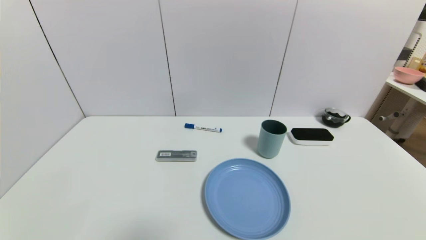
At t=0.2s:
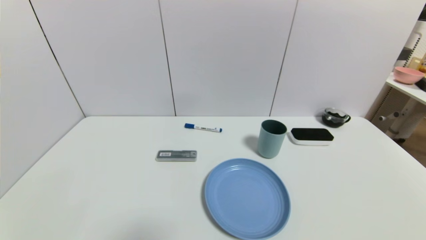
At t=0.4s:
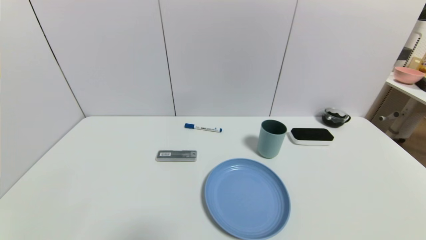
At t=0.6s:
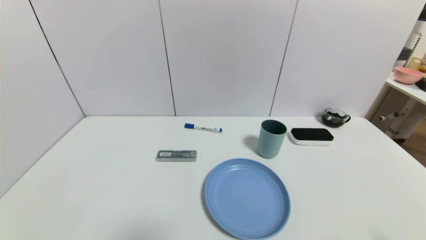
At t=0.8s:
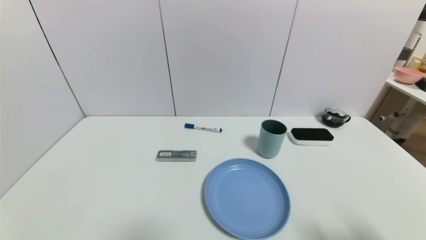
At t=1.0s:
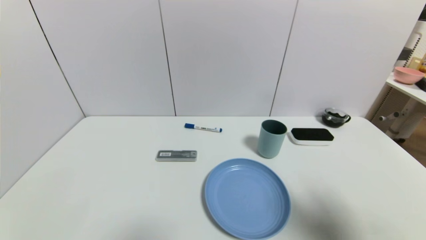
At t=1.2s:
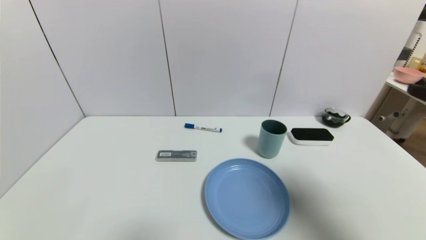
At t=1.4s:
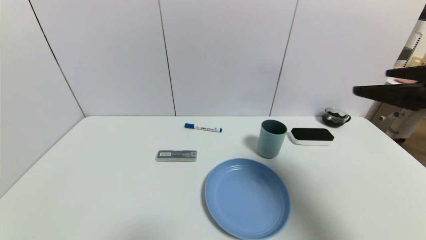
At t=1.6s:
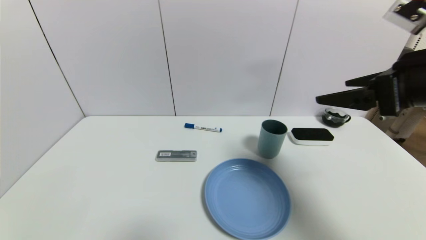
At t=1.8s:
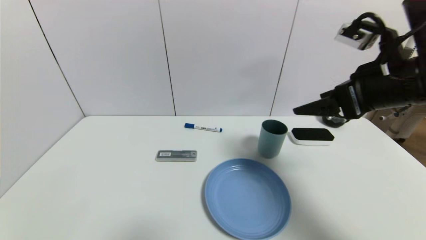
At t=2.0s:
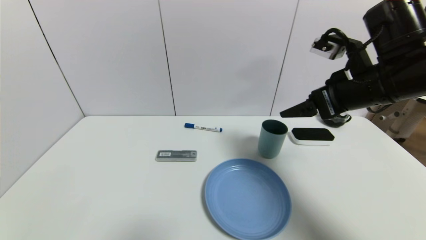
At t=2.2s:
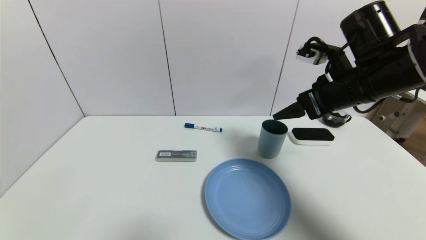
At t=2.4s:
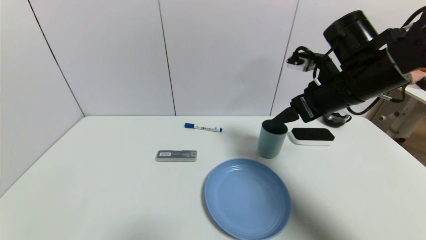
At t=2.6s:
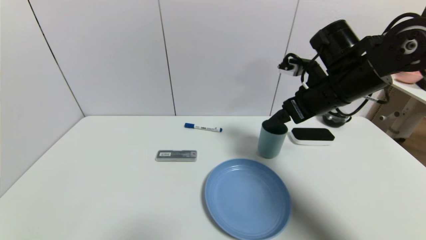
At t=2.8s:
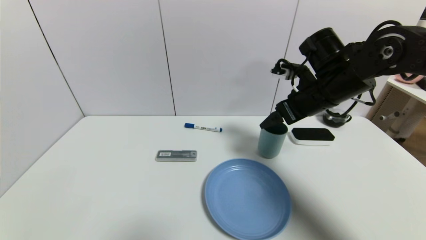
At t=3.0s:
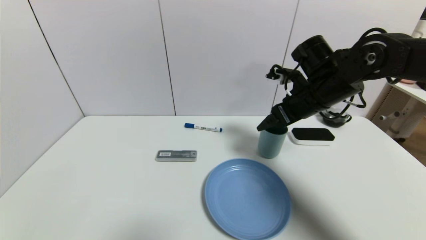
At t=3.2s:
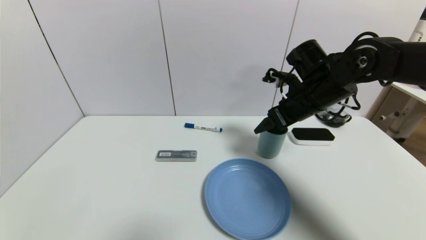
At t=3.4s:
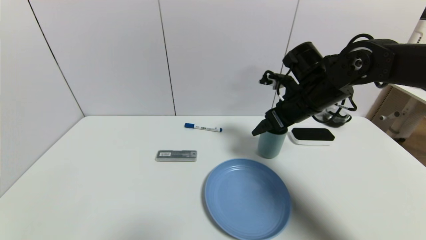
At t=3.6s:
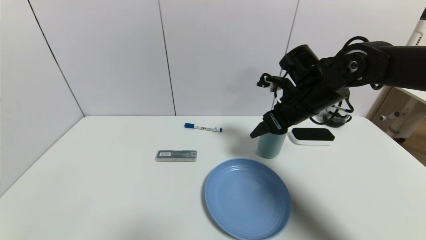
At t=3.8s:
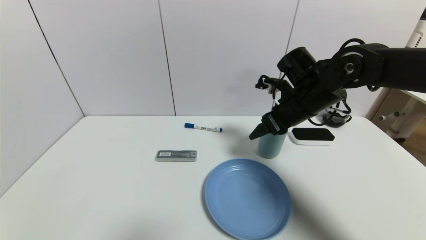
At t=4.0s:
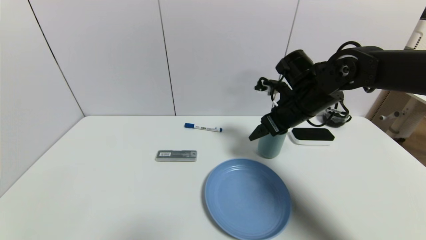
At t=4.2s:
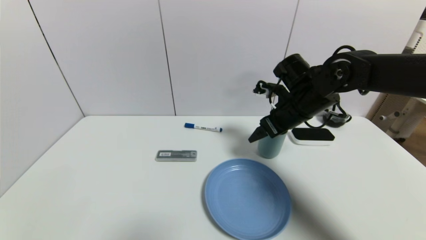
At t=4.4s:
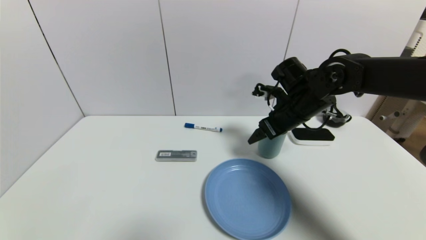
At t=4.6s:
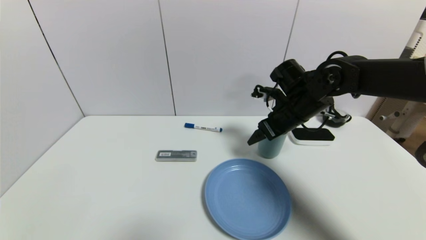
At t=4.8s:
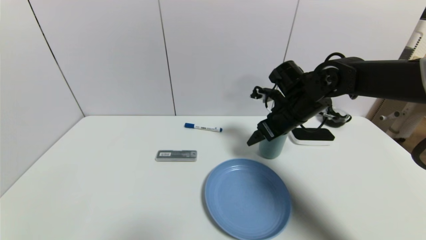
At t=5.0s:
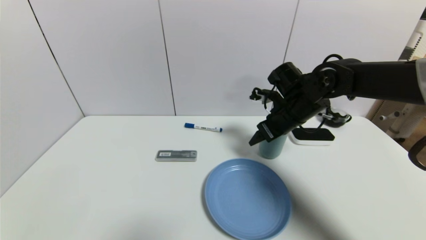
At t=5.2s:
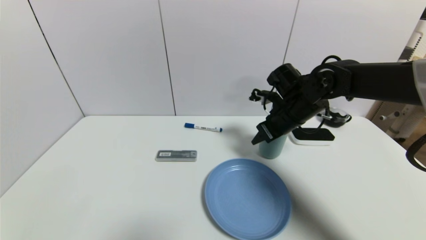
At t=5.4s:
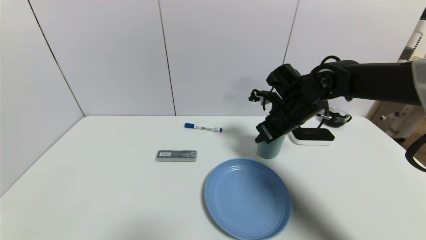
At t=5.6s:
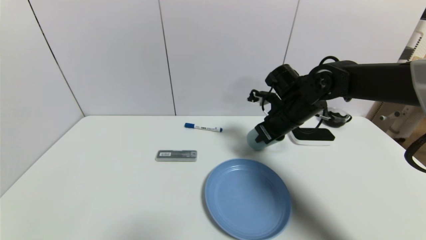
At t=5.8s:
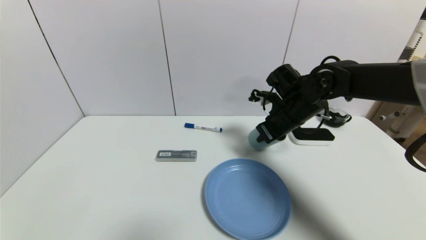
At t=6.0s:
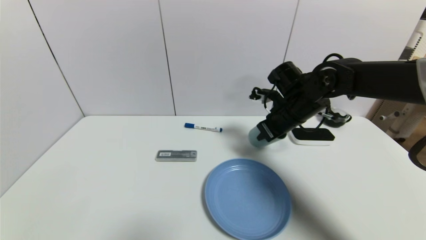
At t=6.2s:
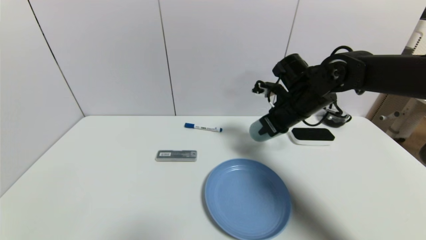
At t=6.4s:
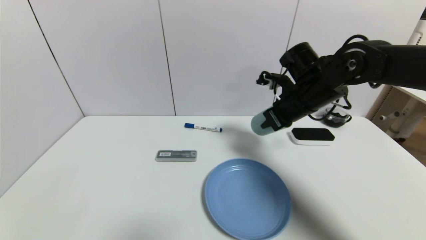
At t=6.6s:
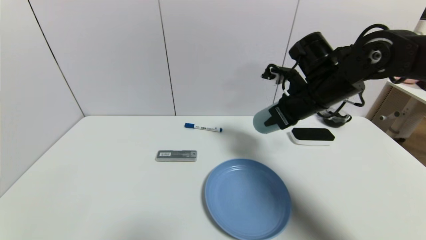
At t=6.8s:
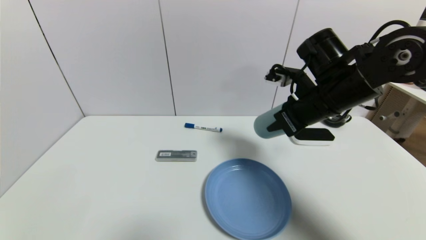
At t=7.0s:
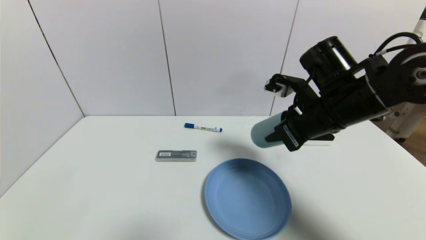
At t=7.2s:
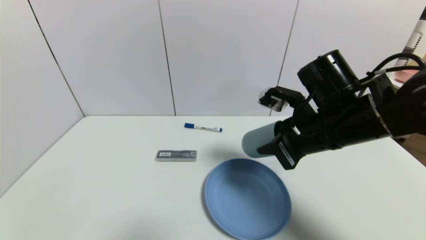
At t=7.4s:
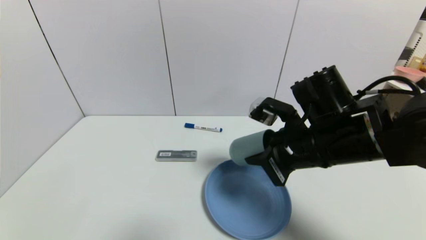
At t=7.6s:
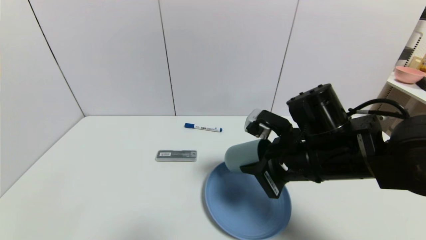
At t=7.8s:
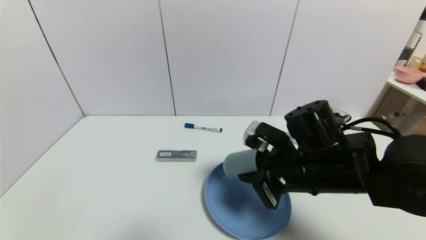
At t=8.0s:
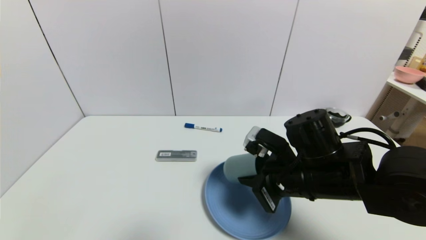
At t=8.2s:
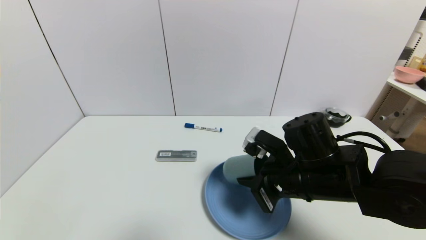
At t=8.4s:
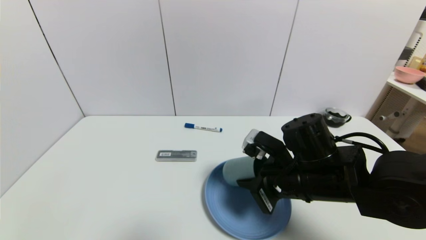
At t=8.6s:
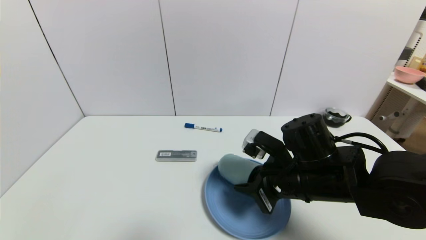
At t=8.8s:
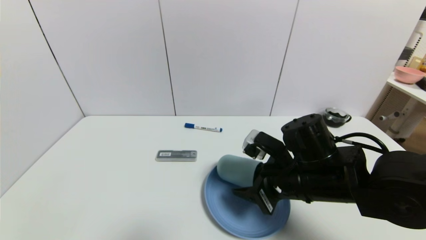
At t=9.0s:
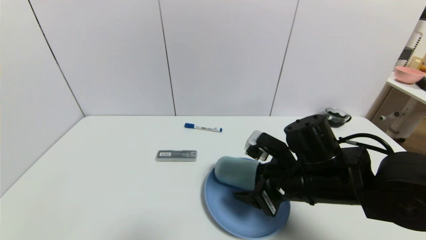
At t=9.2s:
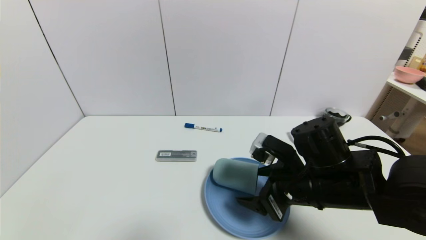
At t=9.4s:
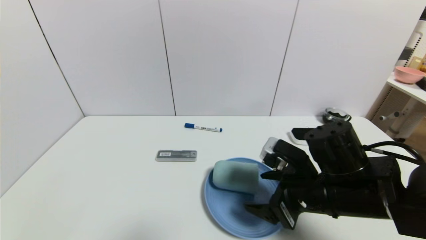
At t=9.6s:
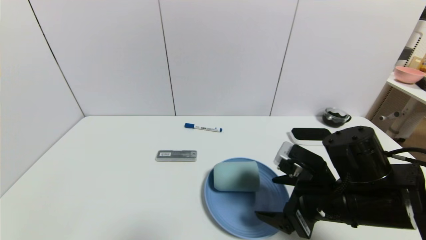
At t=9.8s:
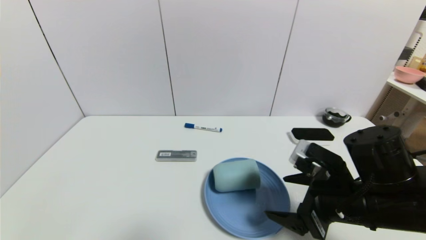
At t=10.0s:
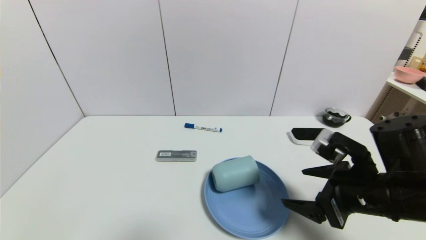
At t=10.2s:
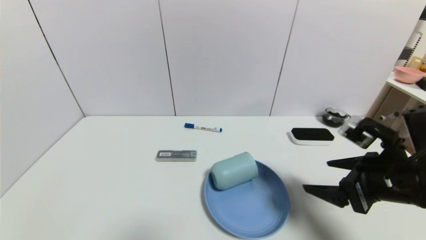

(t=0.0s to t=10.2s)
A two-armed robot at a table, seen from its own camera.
Task of the whole recording: use a gripper to pick the target object and place on the blue plate.
Step, t=0.0s - t=5.4s: Grasp the blue cup with the right gripper.
Step, t=5.6s - t=9.8s: Place the blue cup on the blue plate with the right gripper.
t=0.0s - t=1.4s: The right gripper shifts approximately 30 cm upward and forward.
t=1.4s - t=3.0s: The right gripper is displaced forward, to the left and downward by roughly 20 cm.
t=3.0s - t=4.4s: There are only small adjustments of the grippers.
t=4.4s - t=5.8s: The right gripper closes its fingers.
t=5.8s - t=7.2s: The right gripper travels backward by some 10 cm.
t=7.2s - t=8.8s: The right gripper travels downward by some 10 cm, and opens its fingers.
t=8.8s - t=10.2s: The right gripper goes about 15 cm to the right, and opens.

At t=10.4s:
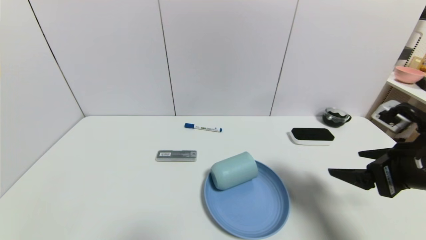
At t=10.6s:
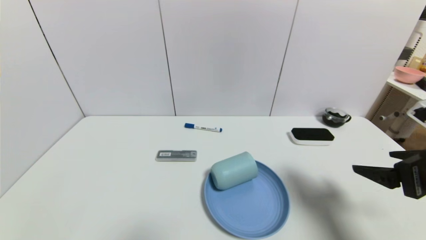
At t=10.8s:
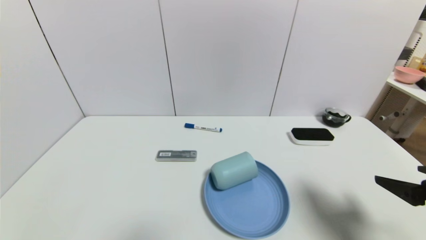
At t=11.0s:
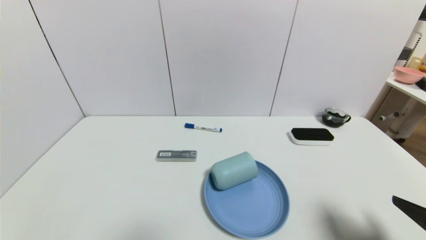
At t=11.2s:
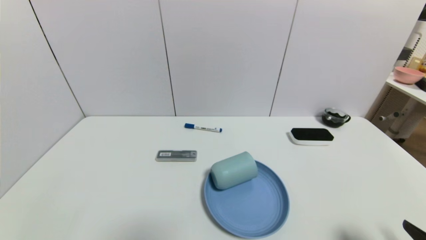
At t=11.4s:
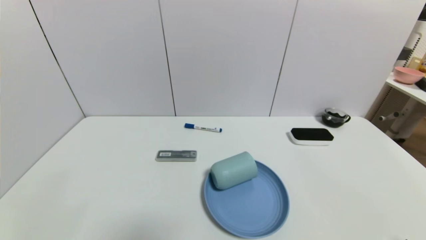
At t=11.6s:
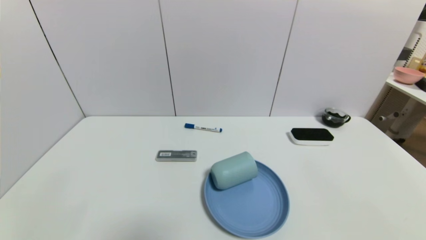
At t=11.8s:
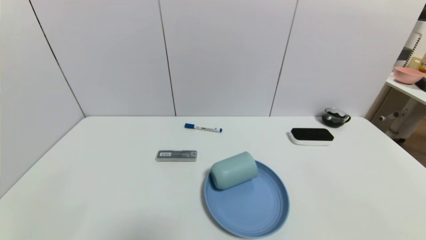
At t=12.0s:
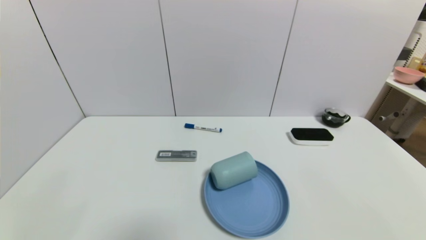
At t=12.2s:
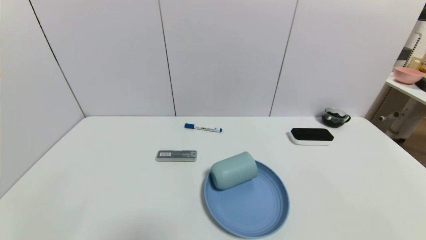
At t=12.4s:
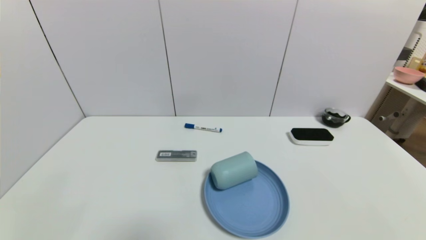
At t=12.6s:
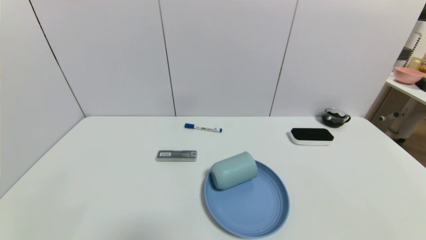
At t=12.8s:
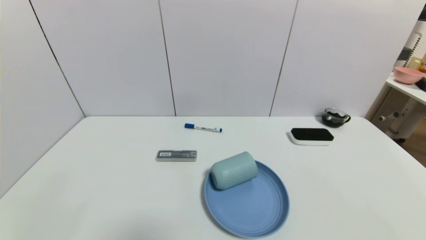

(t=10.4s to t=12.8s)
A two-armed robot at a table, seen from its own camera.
Task of the whole recording: use a gripper to pick the target object and place on the blue plate.
t=10.4s - t=11.6s: The right gripper moves backward and downward, approximately 20 cm.
